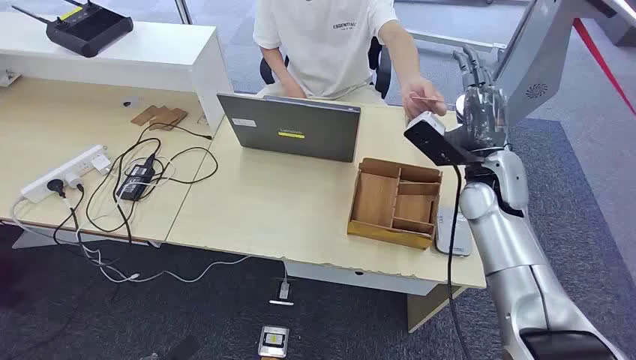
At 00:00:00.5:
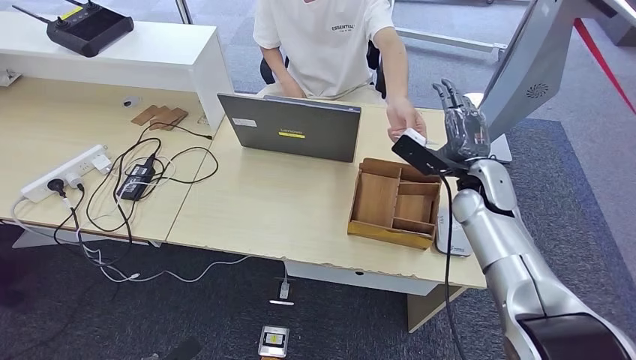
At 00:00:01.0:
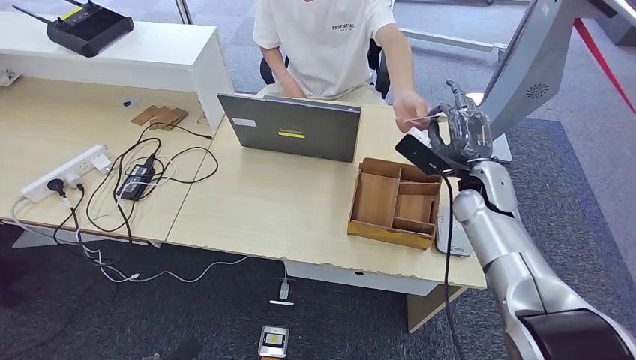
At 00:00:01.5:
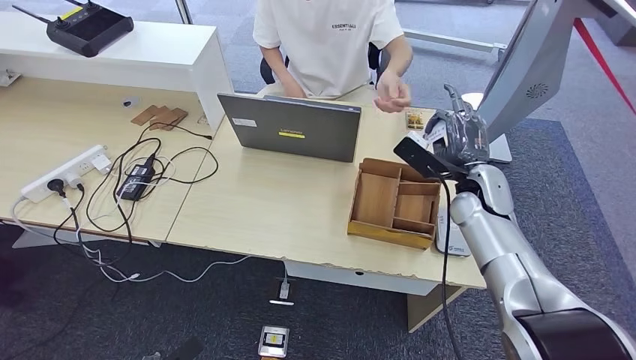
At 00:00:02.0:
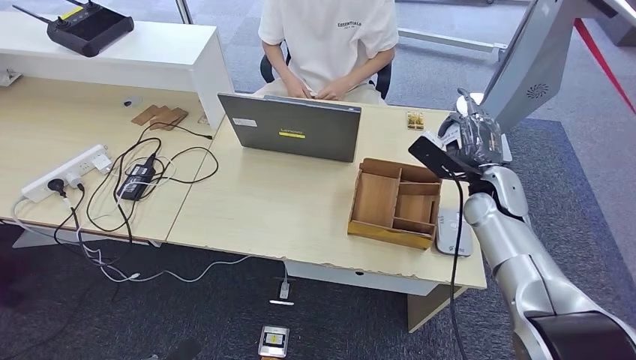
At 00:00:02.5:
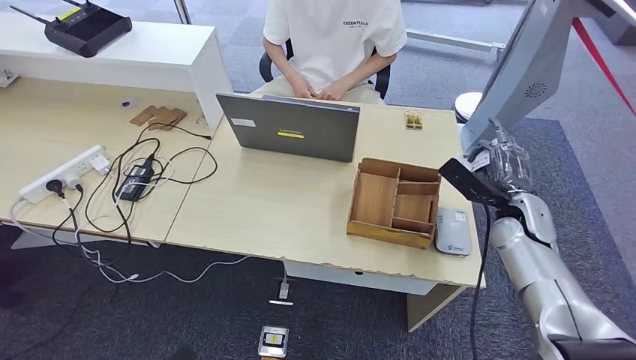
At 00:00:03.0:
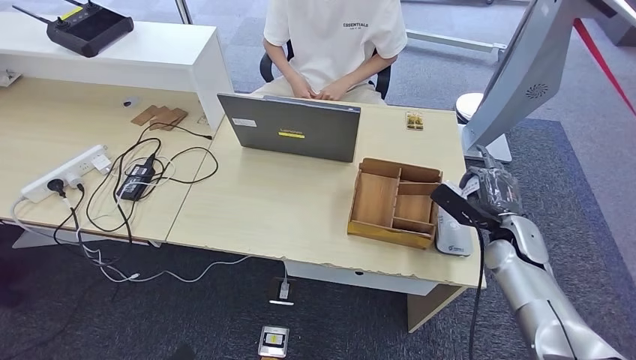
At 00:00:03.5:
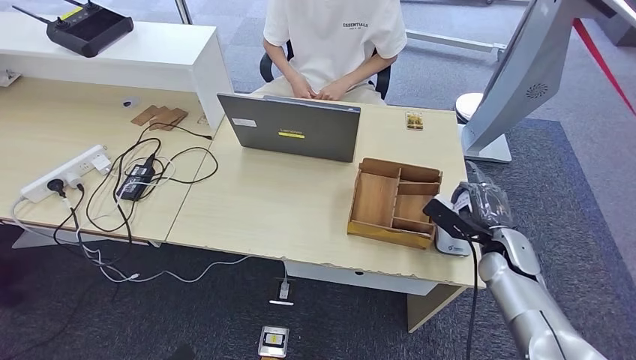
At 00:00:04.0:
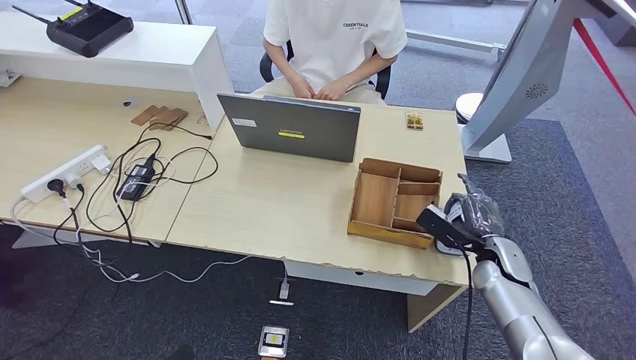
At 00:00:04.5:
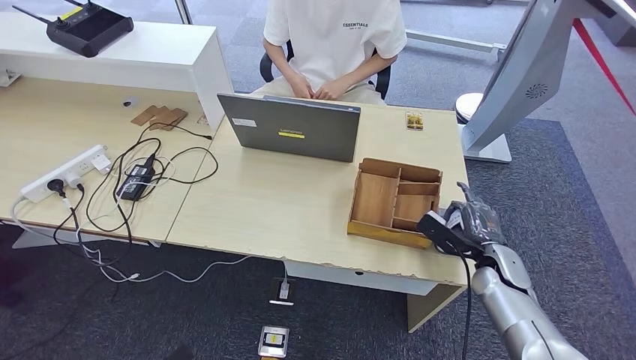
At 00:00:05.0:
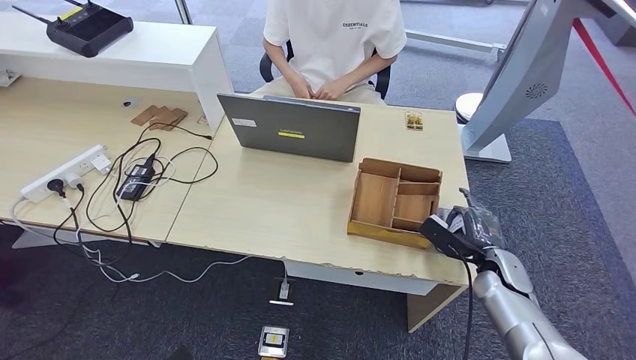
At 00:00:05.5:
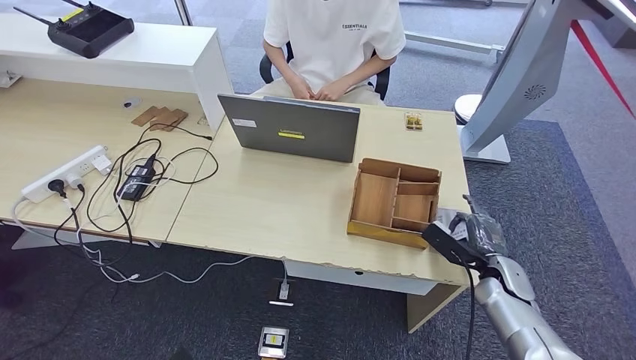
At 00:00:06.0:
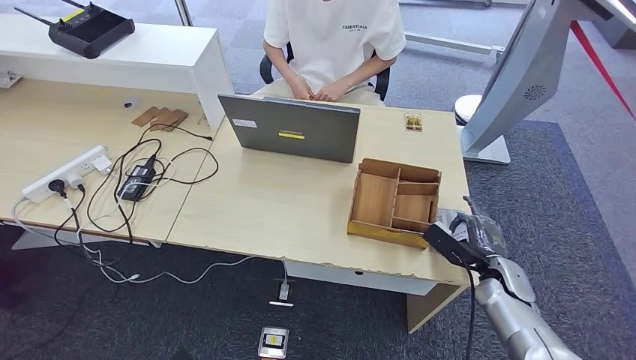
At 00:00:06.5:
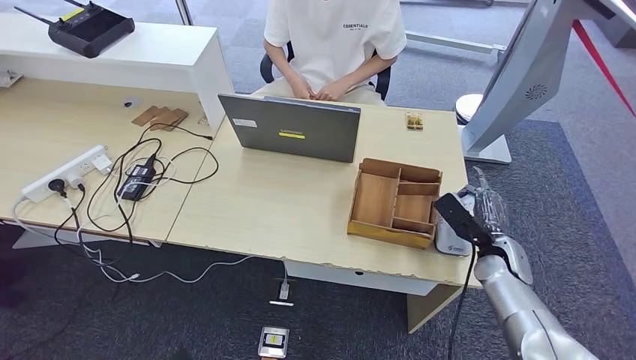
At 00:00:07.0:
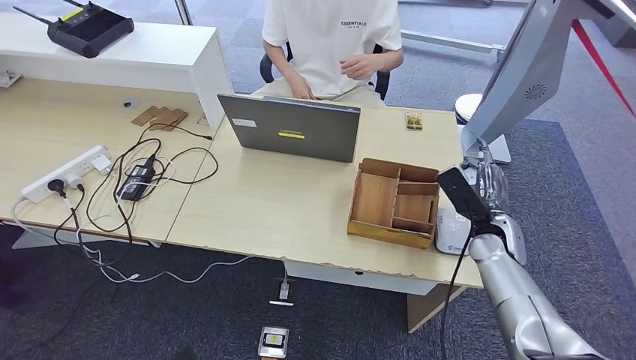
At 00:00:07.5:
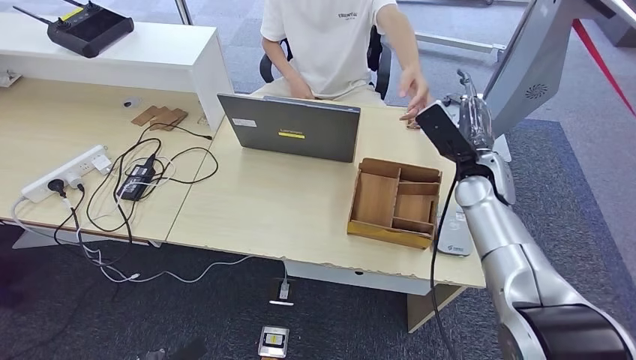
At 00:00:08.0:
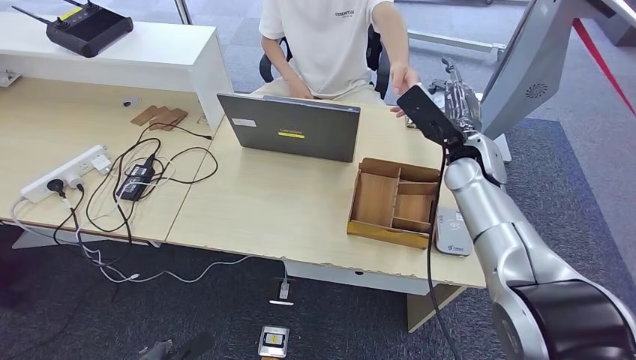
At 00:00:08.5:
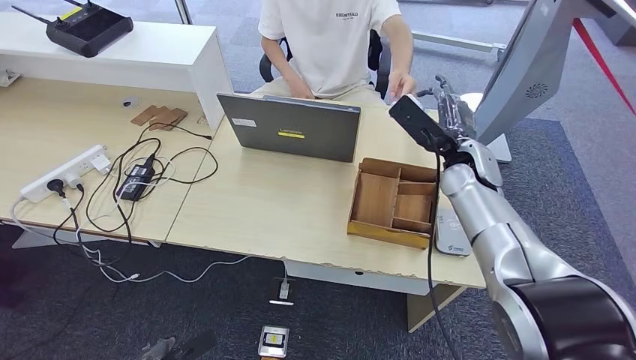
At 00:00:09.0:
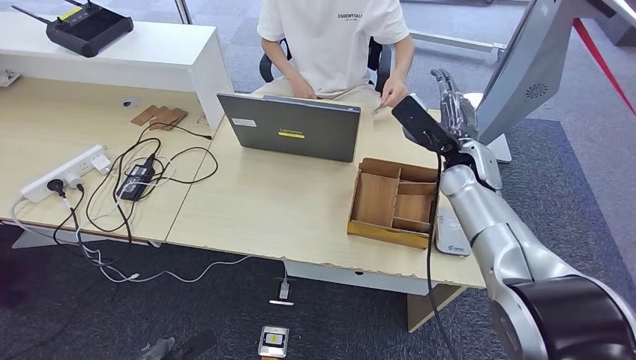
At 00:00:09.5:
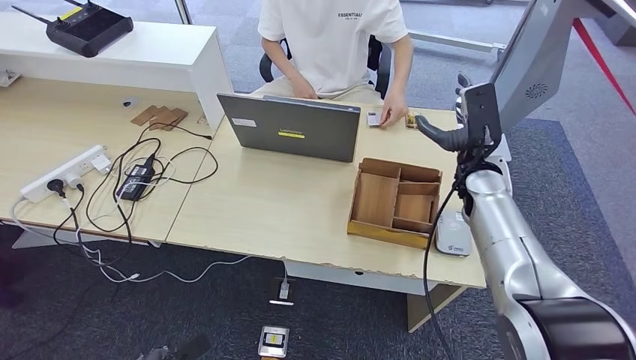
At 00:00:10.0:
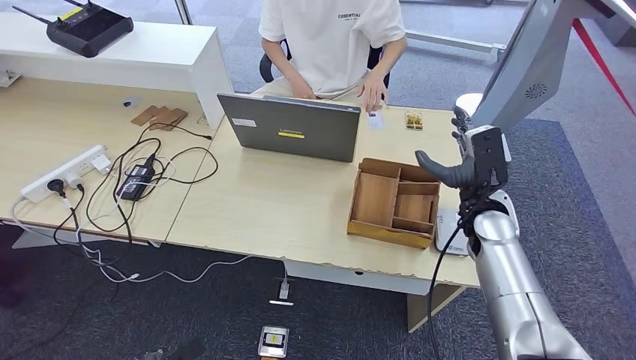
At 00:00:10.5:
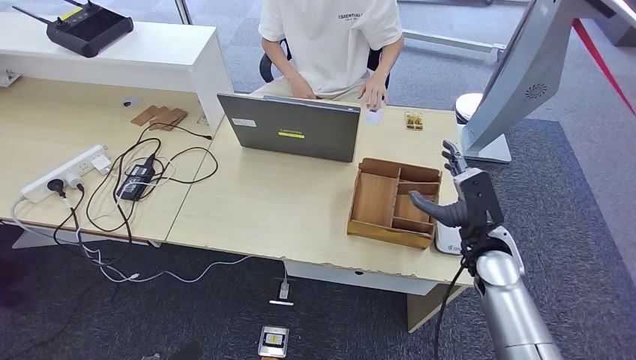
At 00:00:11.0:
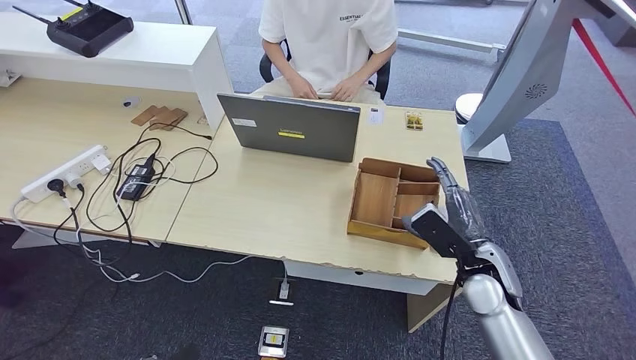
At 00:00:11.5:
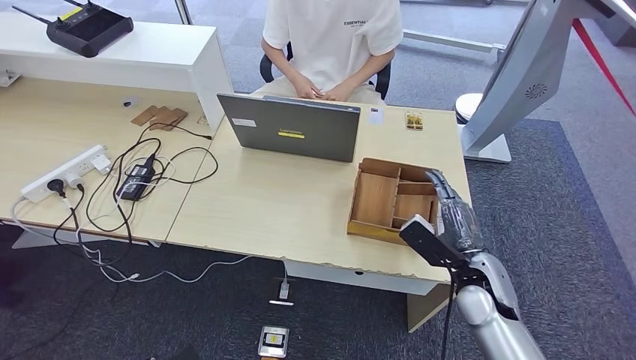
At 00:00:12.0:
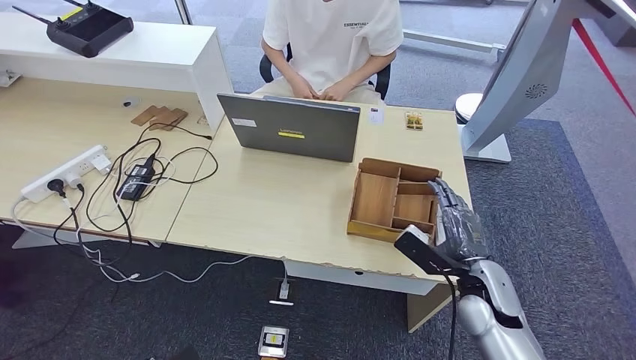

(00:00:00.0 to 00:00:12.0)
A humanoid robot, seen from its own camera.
Step, 00:00:00.0 - 00:00:02.0: Take the ID card from the person's hand.
Step, 00:00:02.5 - 00:00:06.5: Place the ID card on the card reader.
Step, 00:00:07.0 - 00:00:09.5: Hand the ID card to the person.
00:00:02.0 - 00:00:04.0: The right hand goes about 15 cm downward and backward.
00:00:04.0 - 00:00:06.0: The hands move only a little.
00:00:06.0 - 00:00:08.0: The right hand is displaced upward, to the left and forward by about 25 cm. Meanwhile the left hand shifts some 5 cm forward.
00:00:08.0 - 00:00:10.0: The right hand moves downward and backward, approximately 10 cm.
00:00:10.0 - 00:00:12.0: The right hand heads backward and downward, covering some 15 cm.

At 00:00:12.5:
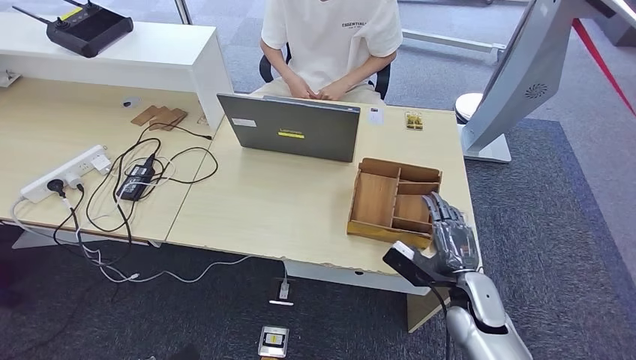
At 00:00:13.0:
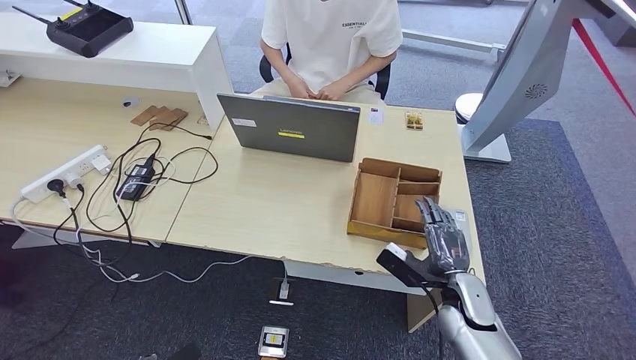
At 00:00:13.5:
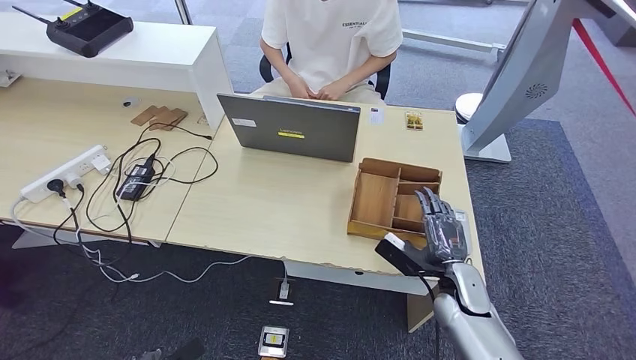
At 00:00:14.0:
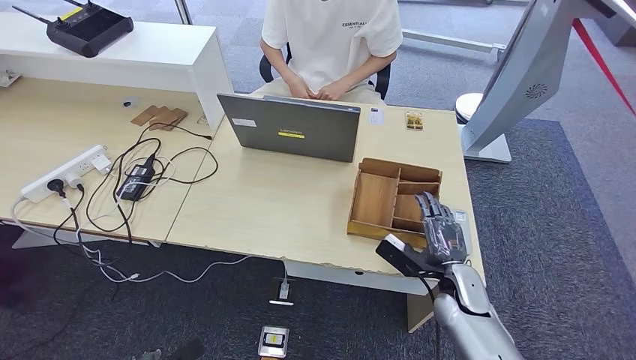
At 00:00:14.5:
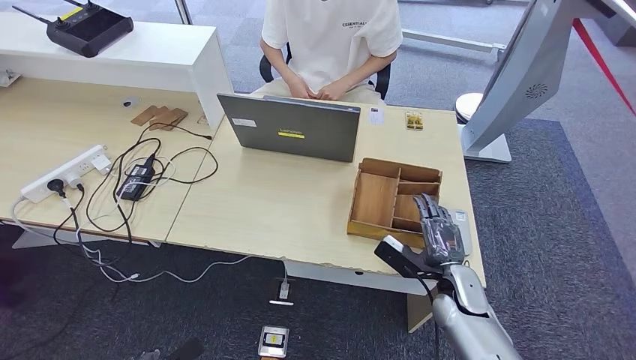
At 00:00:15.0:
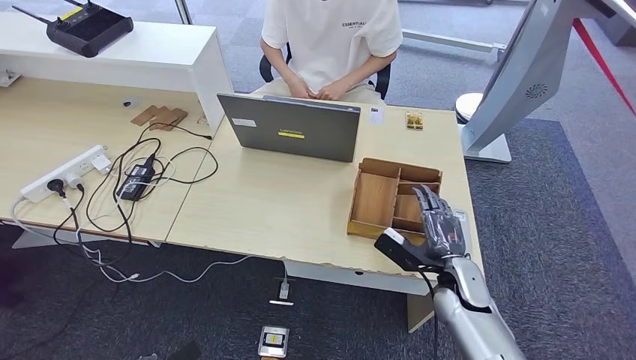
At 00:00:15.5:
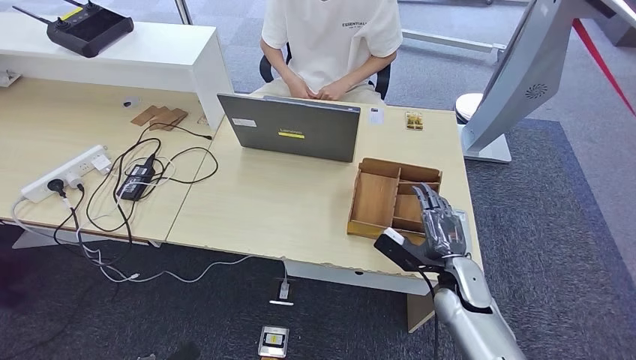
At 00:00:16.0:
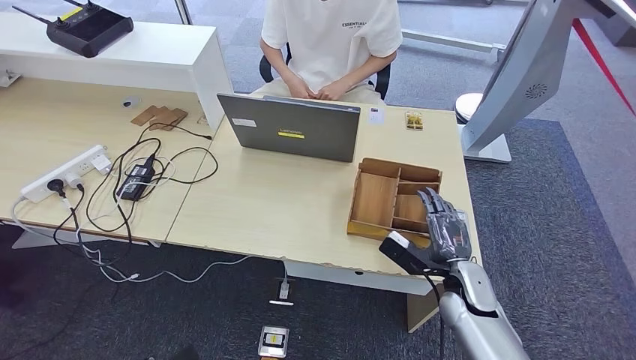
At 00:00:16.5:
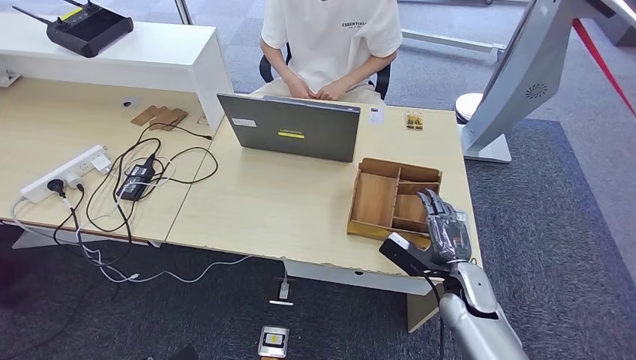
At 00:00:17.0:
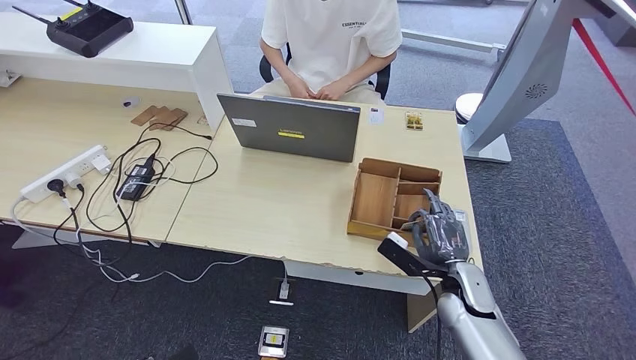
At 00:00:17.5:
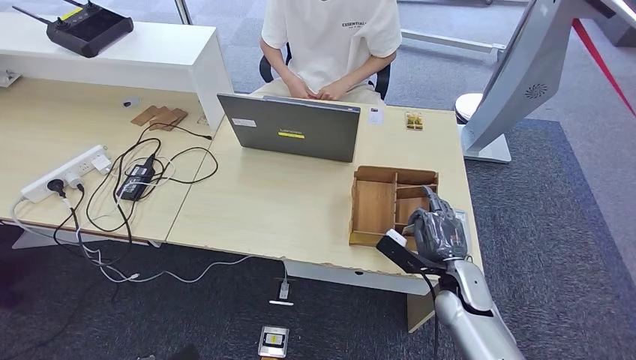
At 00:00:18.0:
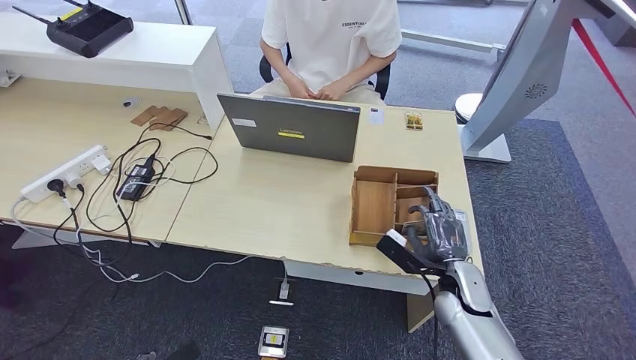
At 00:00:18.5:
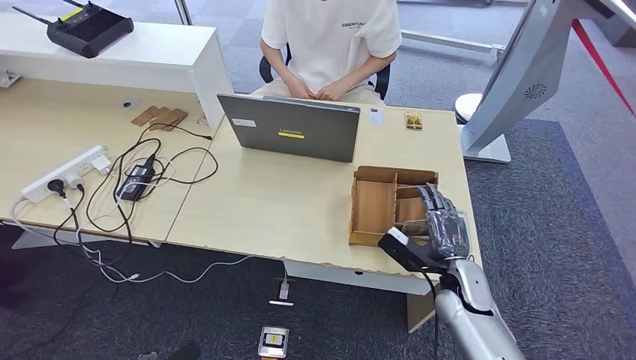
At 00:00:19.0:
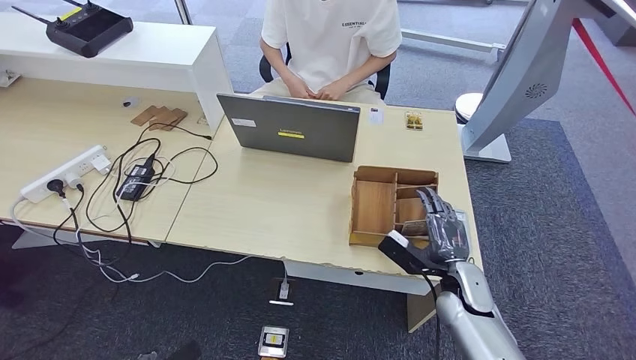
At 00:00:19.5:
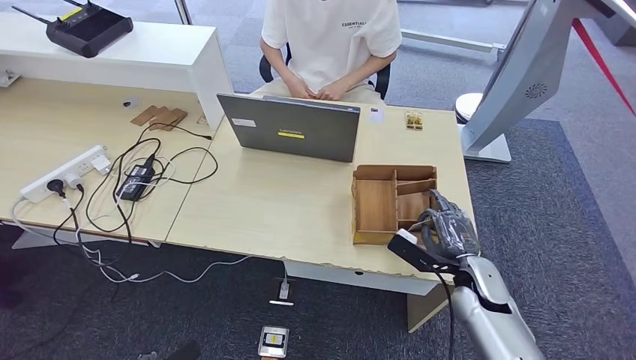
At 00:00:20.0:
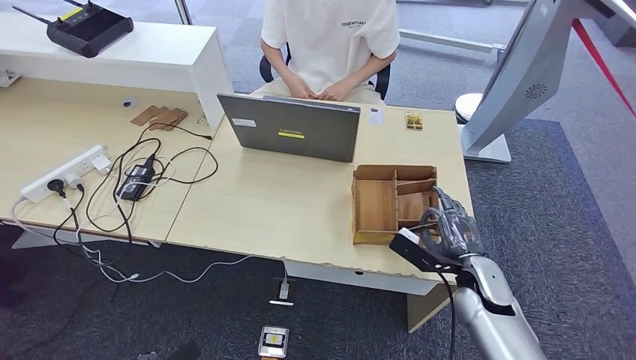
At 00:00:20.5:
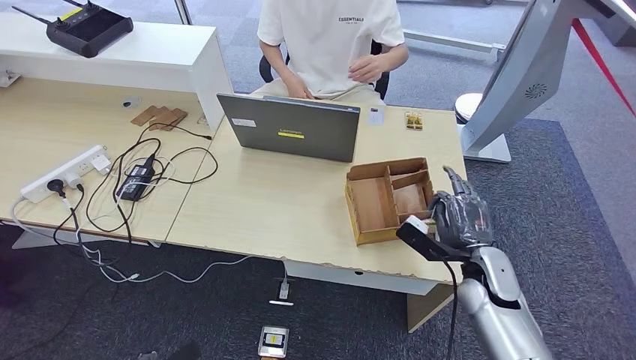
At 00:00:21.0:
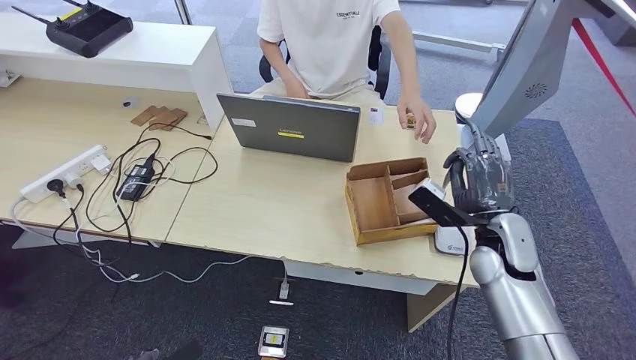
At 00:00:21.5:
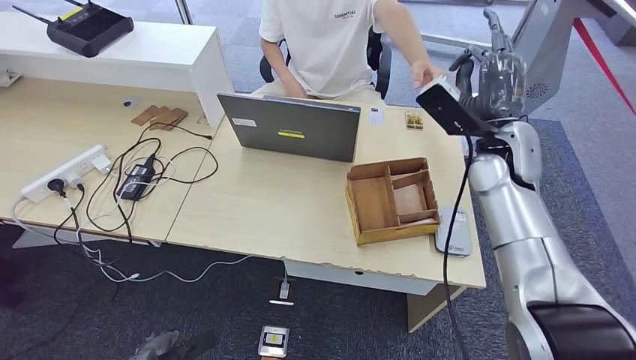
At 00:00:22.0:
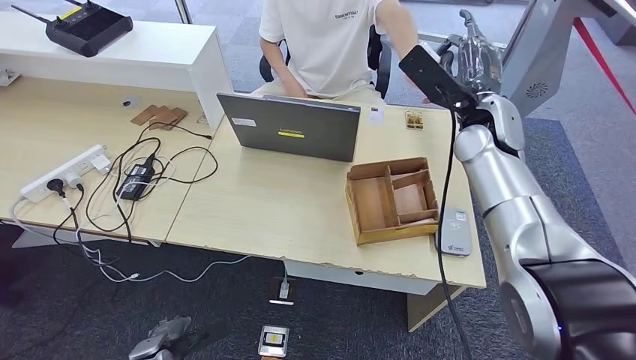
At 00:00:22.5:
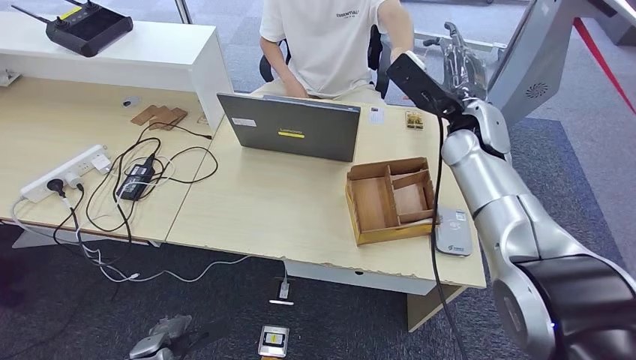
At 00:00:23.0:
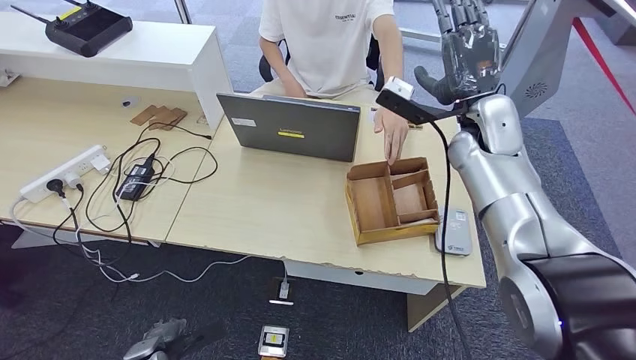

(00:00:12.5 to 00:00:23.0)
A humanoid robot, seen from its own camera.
Step, 00:00:18.5 - 00:00:21.0: Pick up the room key from the key card box.
00:00:12.5 - 00:00:16.5: There are only small adjustments of the hands.
00:00:16.5 - 00:00:19.0: The two hands keep their place.
00:00:19.0 - 00:00:21.0: The right hand goes approximately 10 cm upward.
00:00:21.0 - 00:00:23.0: The right hand goes some 20 cm upward and forward, while the left hand heads forward, covering roughly 5 cm.
